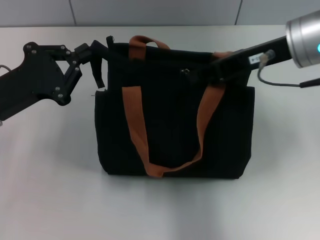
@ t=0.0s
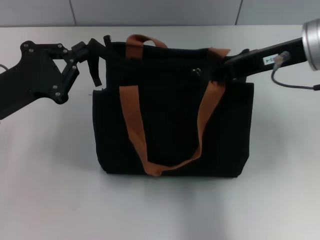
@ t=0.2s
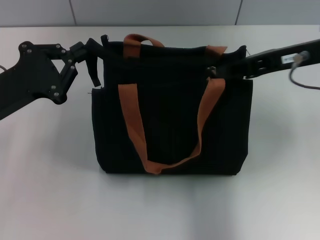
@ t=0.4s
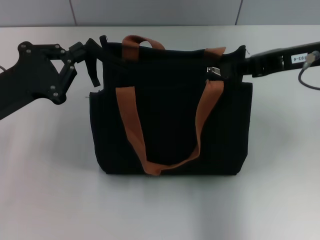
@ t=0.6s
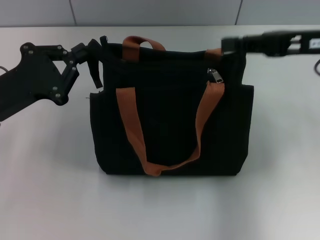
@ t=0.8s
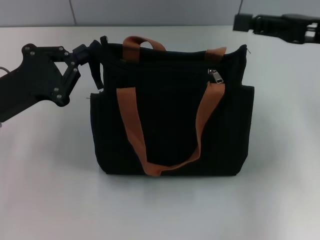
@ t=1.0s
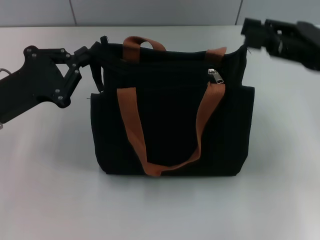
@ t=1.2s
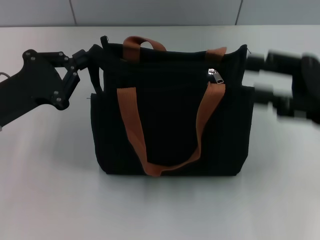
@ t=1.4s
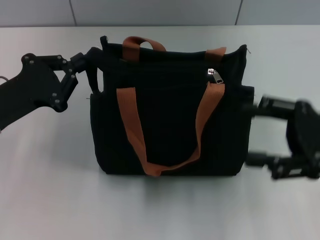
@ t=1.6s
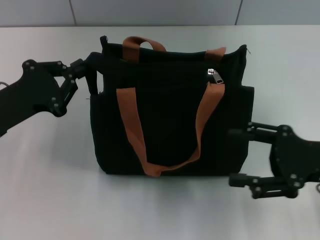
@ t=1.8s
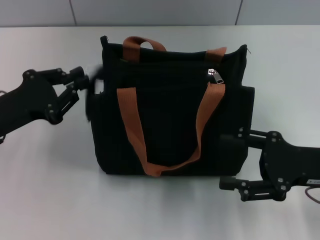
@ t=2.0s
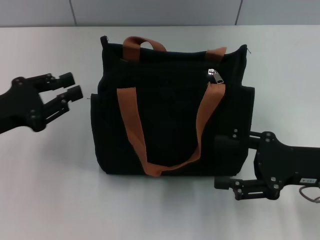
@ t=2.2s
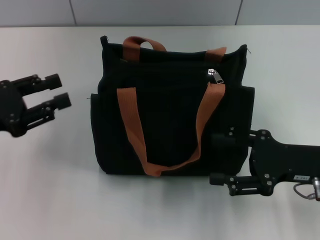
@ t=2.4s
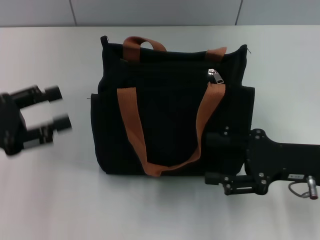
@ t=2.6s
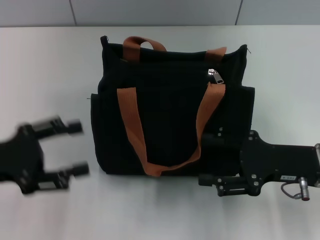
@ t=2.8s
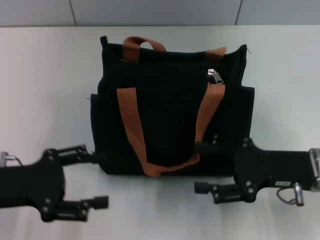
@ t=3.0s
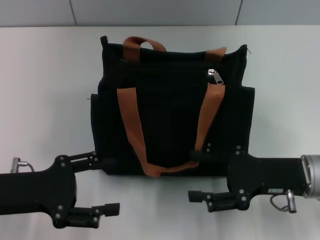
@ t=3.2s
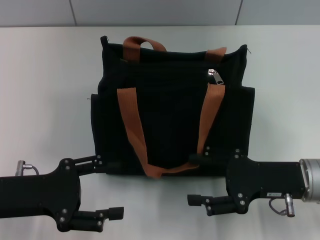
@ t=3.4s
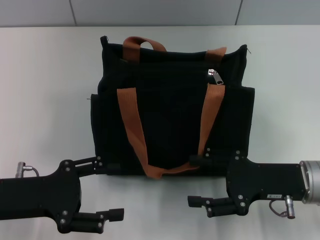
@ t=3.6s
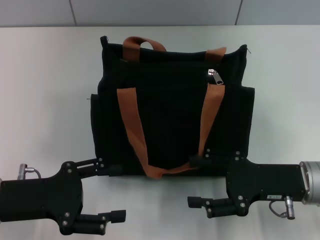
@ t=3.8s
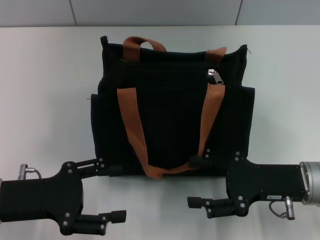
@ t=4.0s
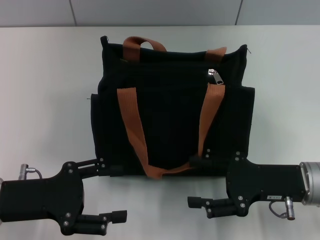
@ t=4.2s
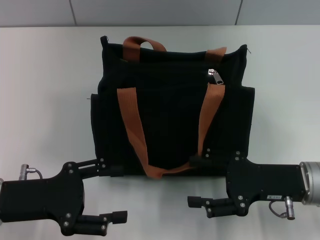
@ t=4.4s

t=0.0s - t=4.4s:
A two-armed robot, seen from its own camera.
t=0.0s - t=1.4s: The right gripper heads to the right, backward and downward, covering roughly 15 cm, and opens.
t=1.4s - t=3.0s: The left gripper is displaced backward by about 5 cm, and opens, while the right gripper travels downward by approximately 10 cm, and opens up.
t=3.0s - t=4.4s: The grippers stay close to where they were, moving slightly.

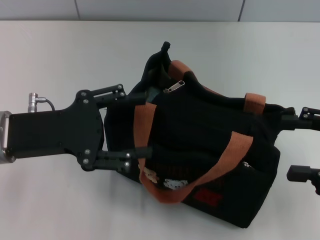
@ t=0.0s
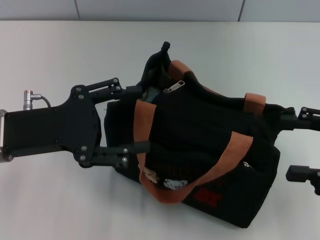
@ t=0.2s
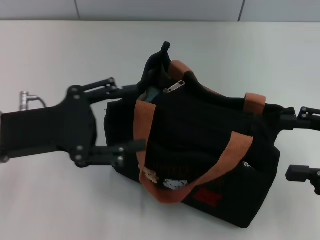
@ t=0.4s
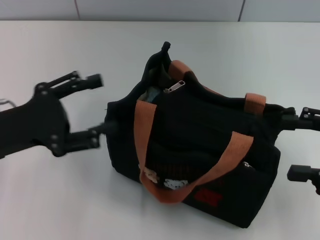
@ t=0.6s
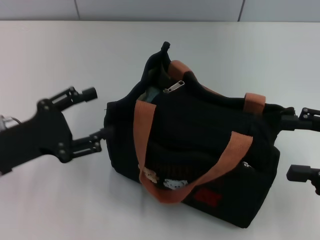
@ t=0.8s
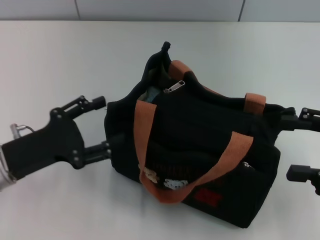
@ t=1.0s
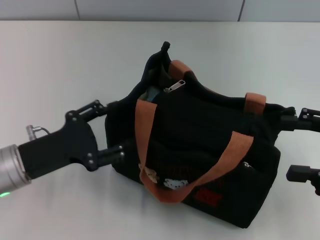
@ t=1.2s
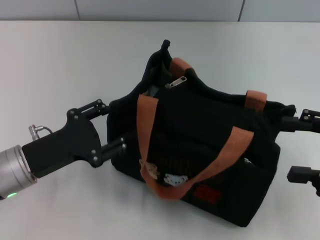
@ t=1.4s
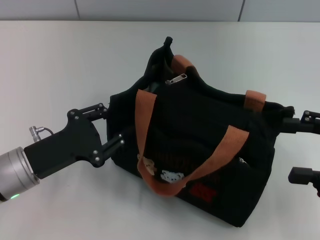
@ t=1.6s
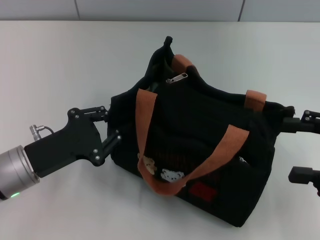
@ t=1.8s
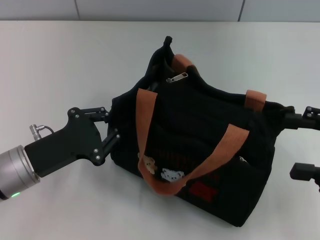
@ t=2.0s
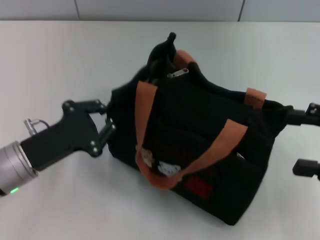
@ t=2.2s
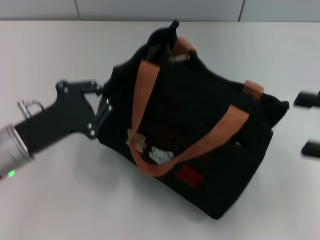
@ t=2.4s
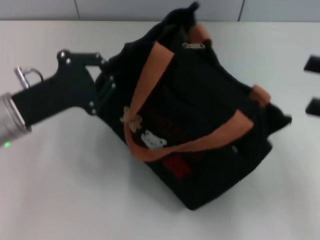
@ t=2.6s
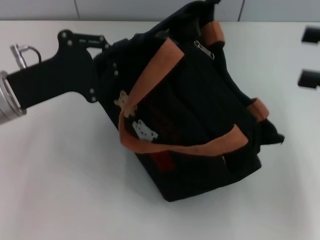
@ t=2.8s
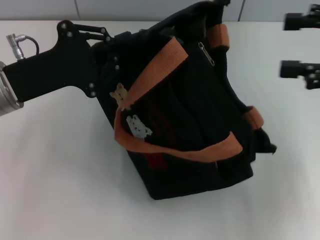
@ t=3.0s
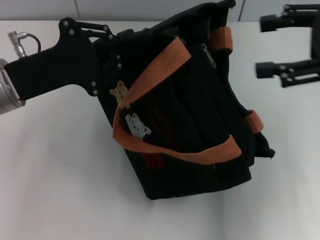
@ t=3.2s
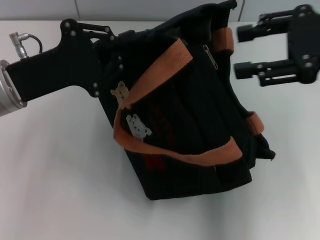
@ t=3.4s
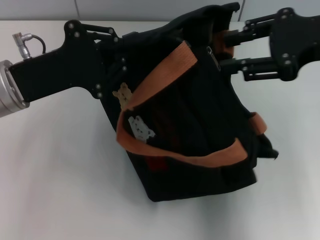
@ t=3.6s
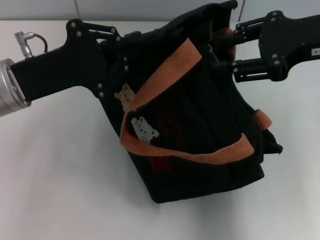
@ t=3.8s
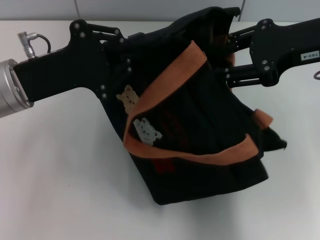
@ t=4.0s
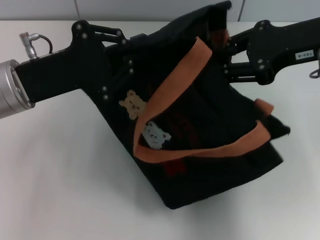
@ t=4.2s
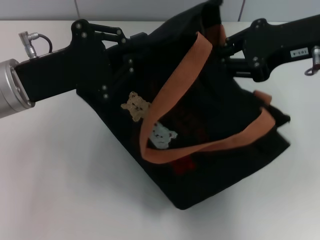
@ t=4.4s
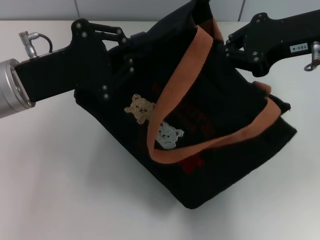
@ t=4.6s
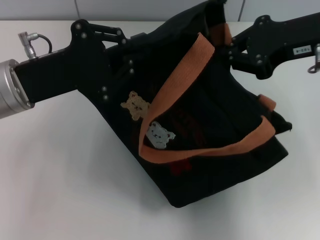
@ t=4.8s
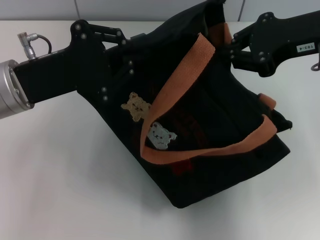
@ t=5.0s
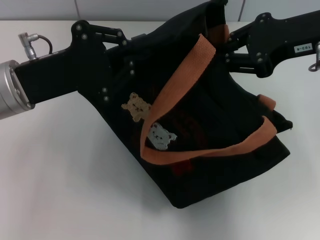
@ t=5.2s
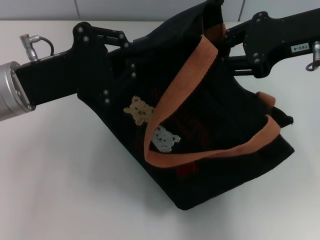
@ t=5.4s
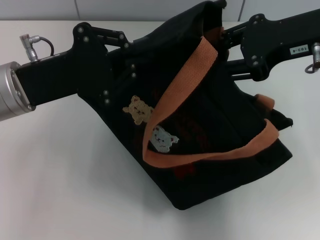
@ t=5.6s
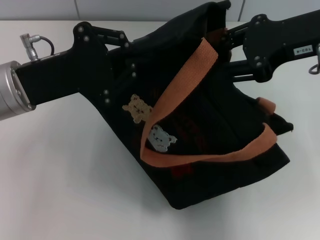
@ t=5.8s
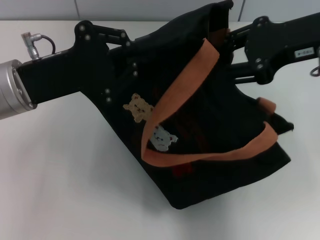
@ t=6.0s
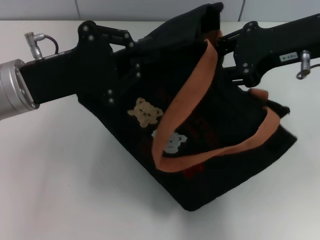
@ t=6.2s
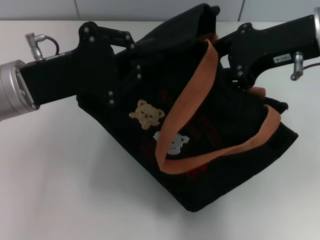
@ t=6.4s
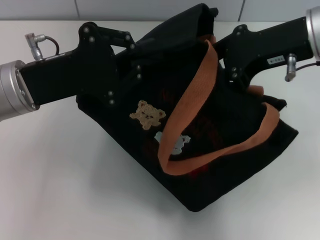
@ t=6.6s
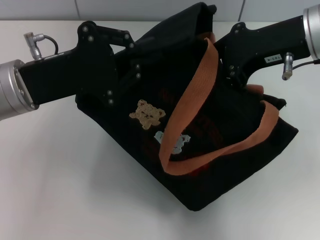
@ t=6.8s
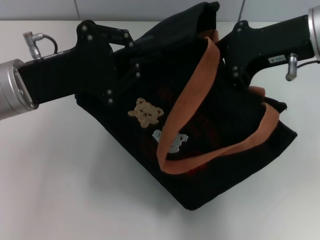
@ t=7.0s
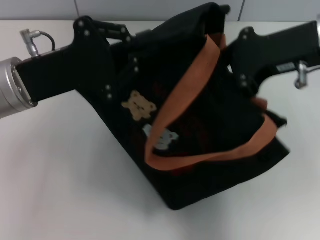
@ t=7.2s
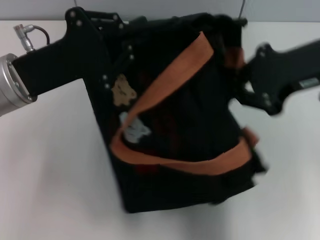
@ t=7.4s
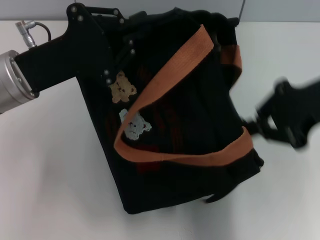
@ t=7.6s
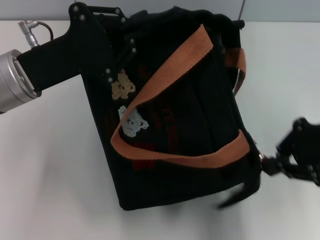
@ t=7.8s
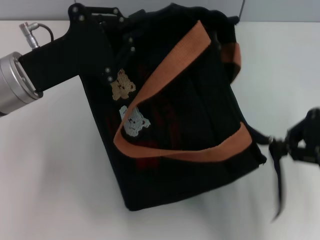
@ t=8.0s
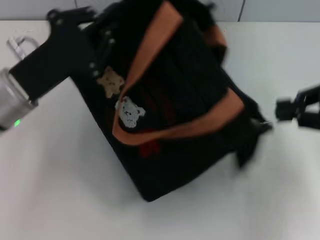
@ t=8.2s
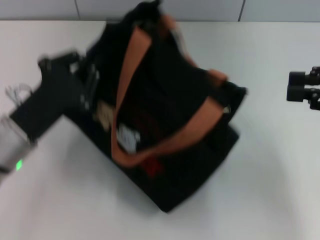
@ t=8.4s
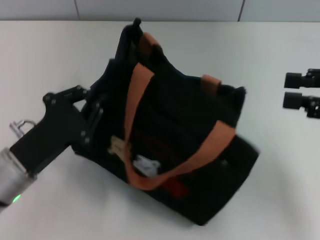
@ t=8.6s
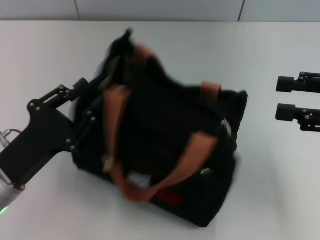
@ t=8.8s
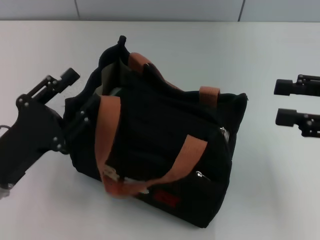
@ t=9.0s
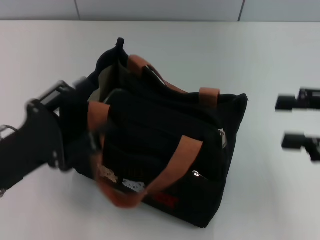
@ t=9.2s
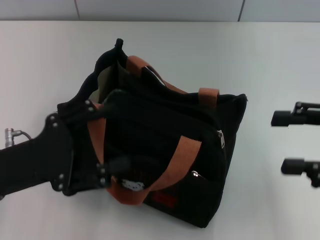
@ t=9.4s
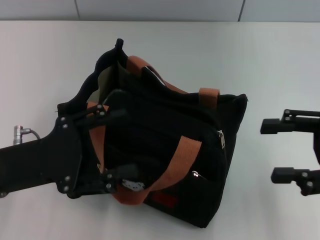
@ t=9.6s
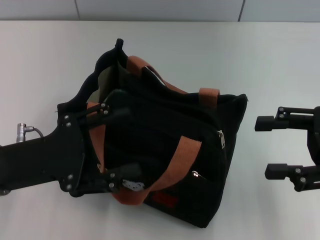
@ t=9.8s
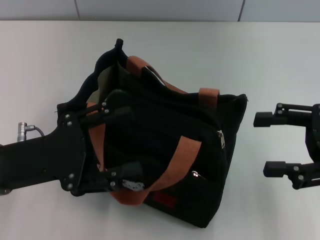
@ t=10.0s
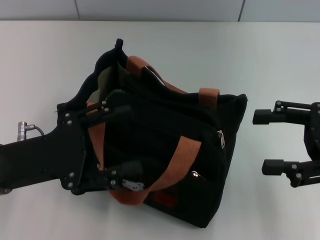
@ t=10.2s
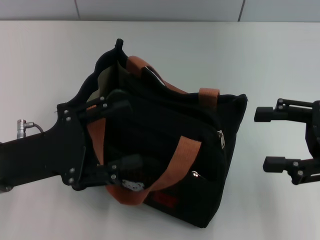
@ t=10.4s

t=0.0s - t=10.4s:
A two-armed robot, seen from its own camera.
Step, t=0.0s - t=8.0s: Pull open the zipper with your right hand.
Step, t=8.4s - t=8.6s: Grab the bag with your left hand.
t=0.0s - t=1.4s: The left gripper goes roughly 10 cm downward.
t=1.4s - t=3.0s: Both grippers move upward and forward, about 10 cm. The left gripper closes its fingers.
t=3.0s - t=4.4s: The right gripper shifts about 10 cm to the left and forward, and closes.
t=4.4s - t=6.0s: There are only small adjustments of the grippers.
t=6.0s - t=7.4s: The right gripper closes its fingers.
t=7.4s - t=9.0s: The right gripper moves to the right, downward and backward, some 15 cm, and opens up. The left gripper shifts about 15 cm backward and downward, and opens up.
t=9.0s - t=10.4s: The left gripper moves approximately 5 cm, and opens its fingers.
